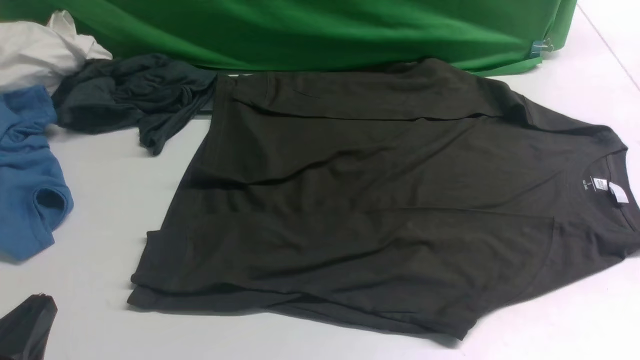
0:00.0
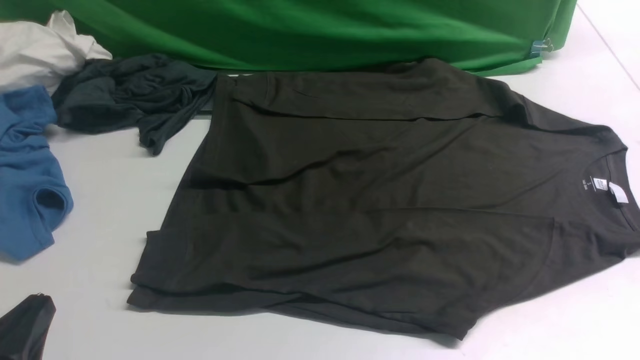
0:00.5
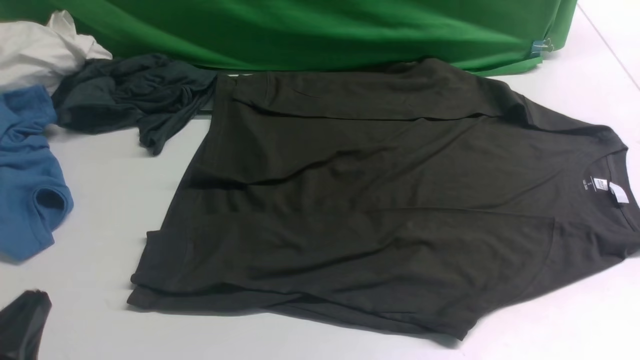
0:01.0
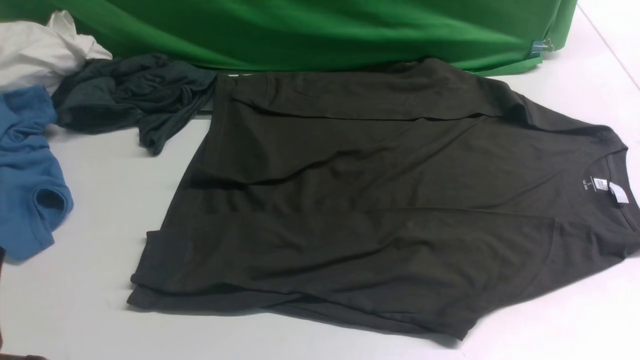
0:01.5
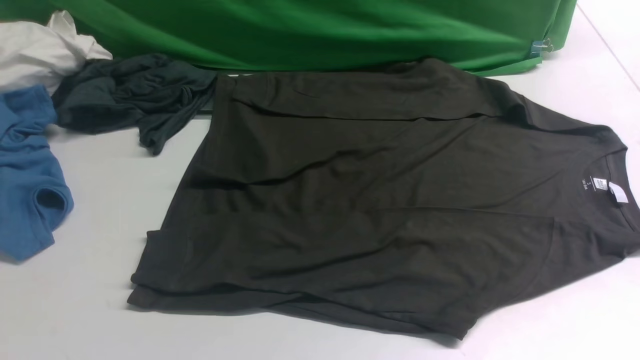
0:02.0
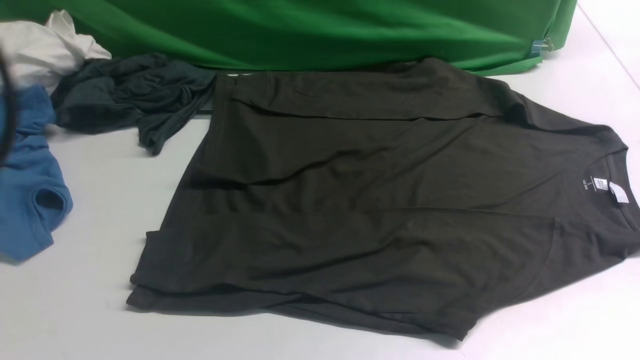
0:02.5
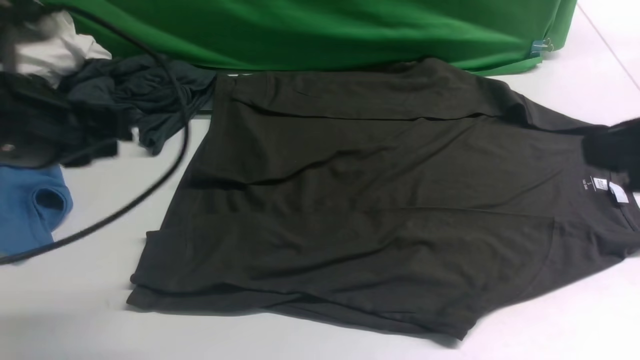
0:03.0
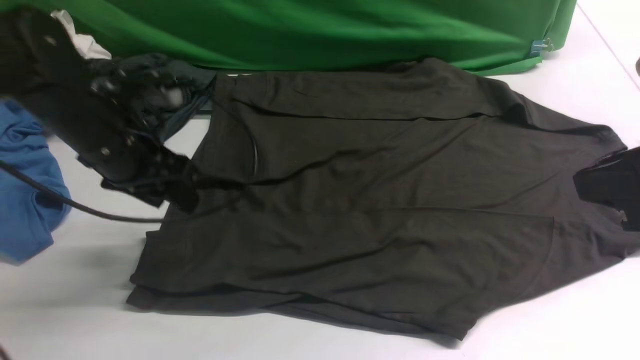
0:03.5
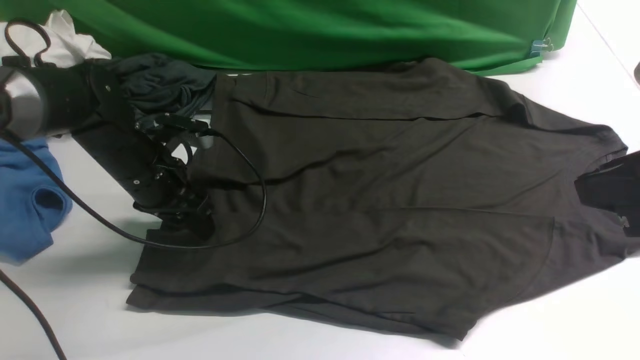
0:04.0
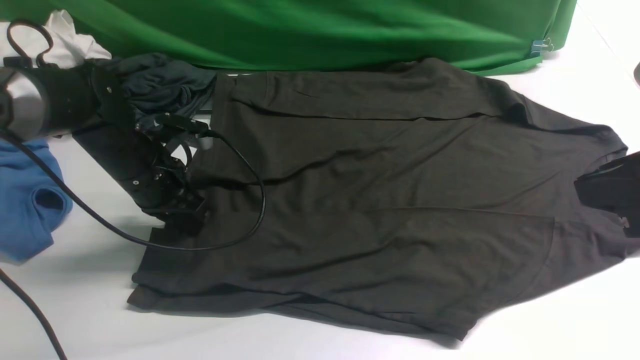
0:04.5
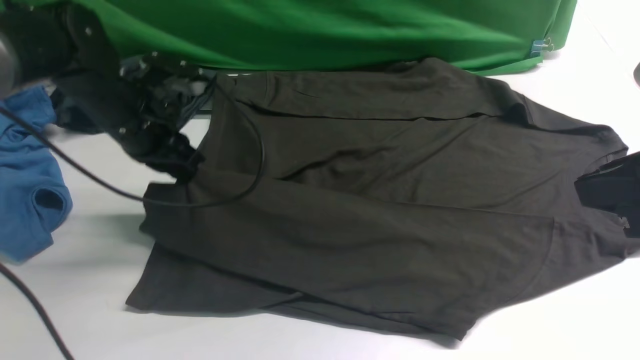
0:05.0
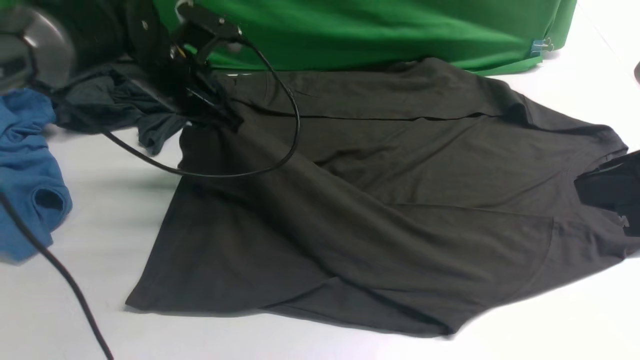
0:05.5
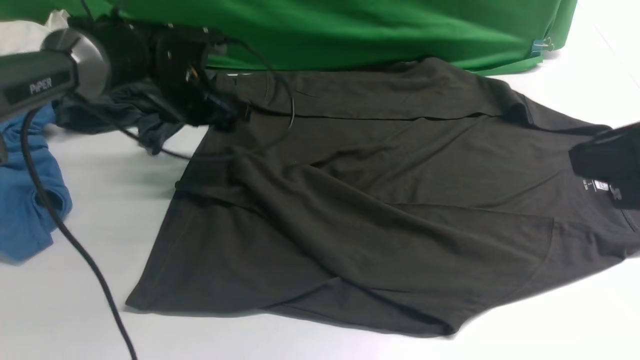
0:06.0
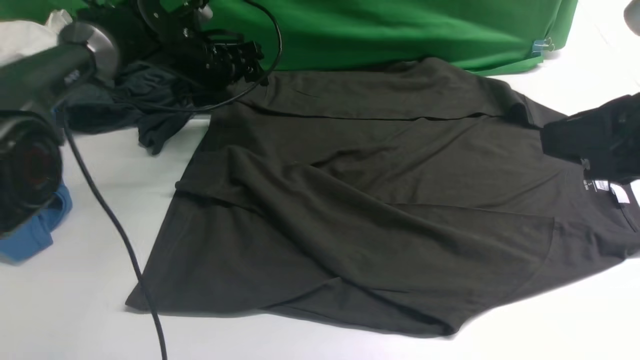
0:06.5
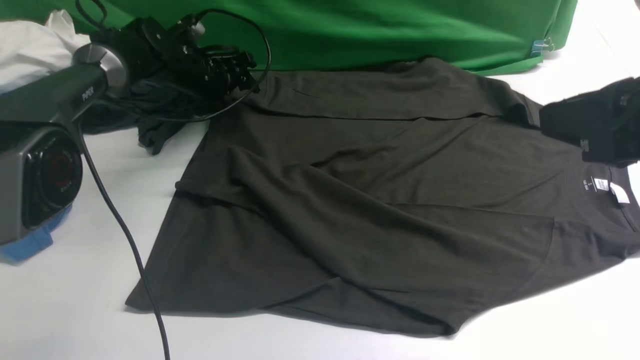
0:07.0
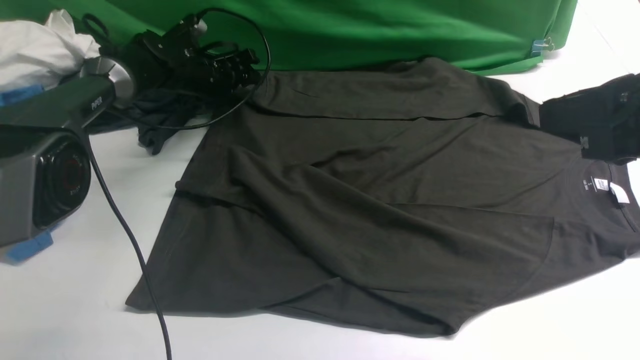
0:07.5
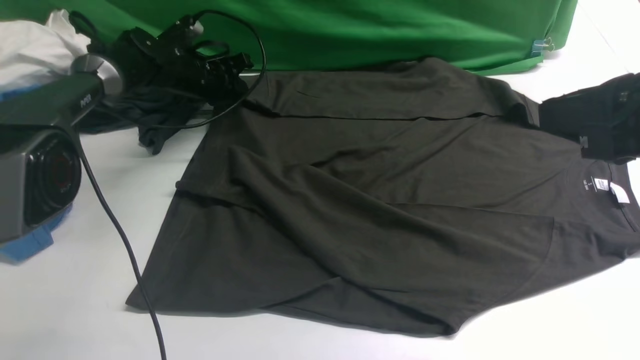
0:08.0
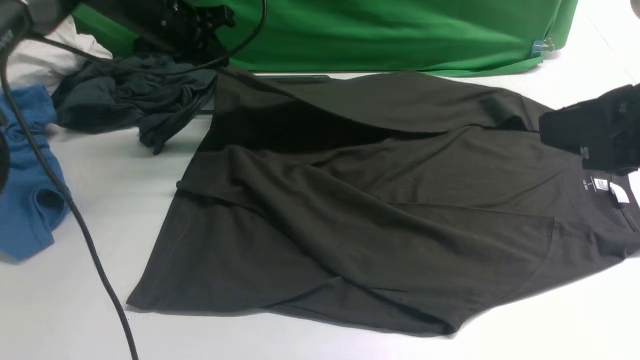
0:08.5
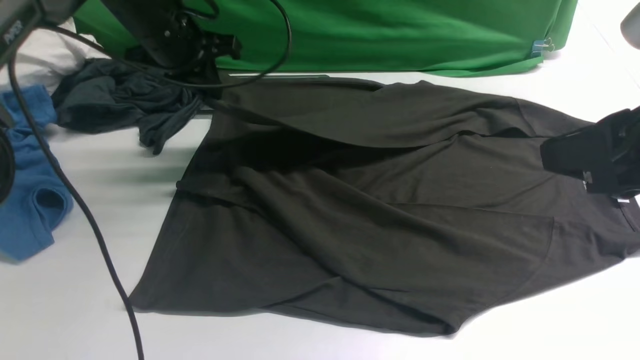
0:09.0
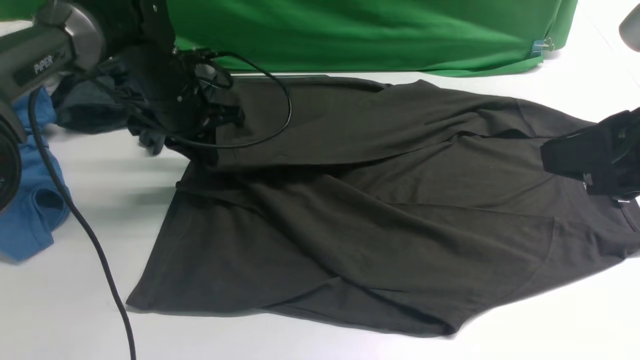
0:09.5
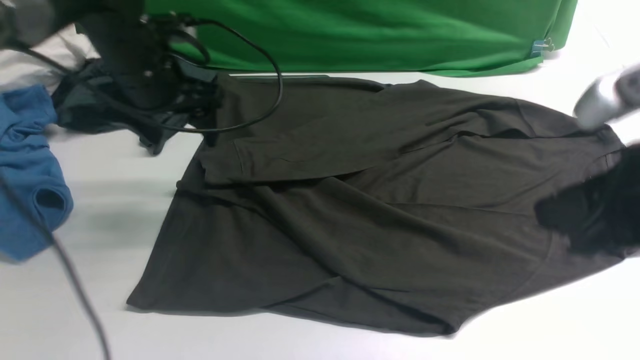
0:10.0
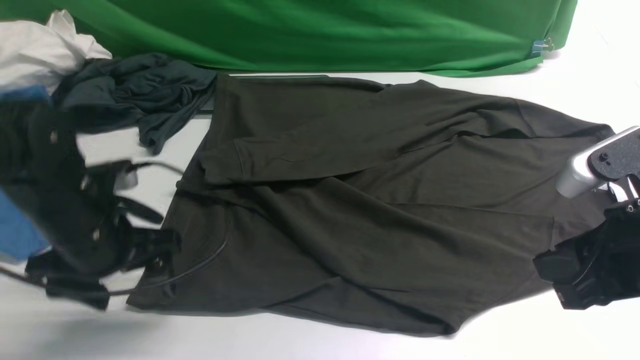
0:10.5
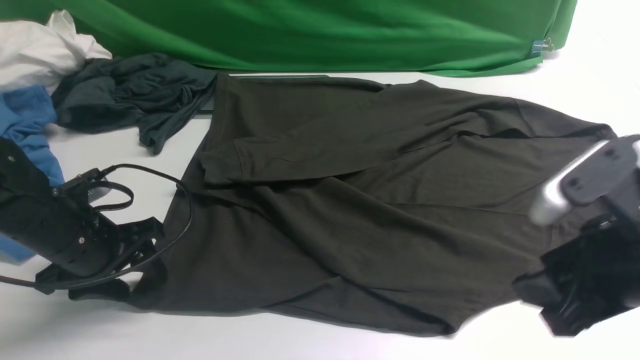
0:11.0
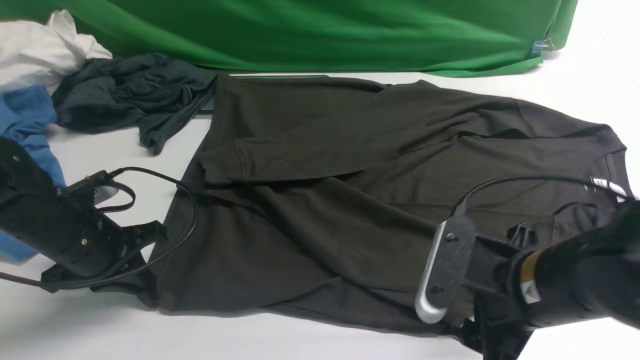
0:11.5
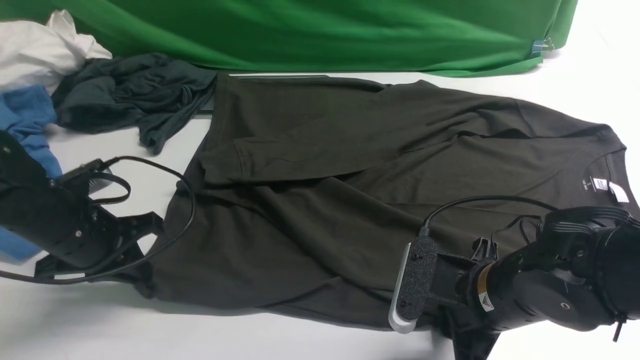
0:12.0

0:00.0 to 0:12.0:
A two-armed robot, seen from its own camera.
Step, 0:00.0 to 0:04.5: use the left arm to clamp the cuff closest to it.
Step, 0:05.5 to 0:06.0: use the left arm to drag and place the cuff at the centered position on the left edge of the fabric.
Step, 0:06.5 to 0:08.0: use the left arm to clamp the cuff farthest from it.
Step, 0:08.5 to 0:09.5: use the left arm to drag and drop the cuff onto the cuff closest to the left arm.
0:00.0 to 0:02.0: The left gripper moves upward, about 20 cm.
0:02.0 to 0:04.0: The left gripper goes roughly 40 cm forward and downward, and opens up. The right gripper shifts approximately 15 cm forward and to the left.
0:04.0 to 0:06.0: The left gripper goes approximately 10 cm forward, and closes and opens again.
0:06.0 to 0:08.0: The left gripper is displaced forward by roughly 10 cm, and closes its fingers.
0:08.0 to 0:10.0: The left gripper travels backward and upward by roughly 20 cm, and opens; the right gripper heads downward, covering approximately 5 cm.
0:10.0 to 0:12.0: The right gripper shifts roughly 20 cm downward and to the left, and opens, then closes once more; the left gripper travels backward, downward and to the left by some 15 cm, and closes up.

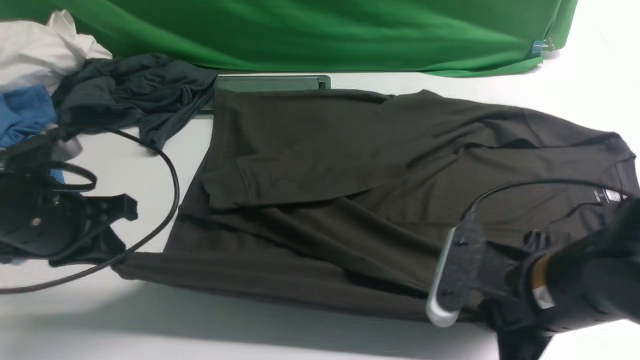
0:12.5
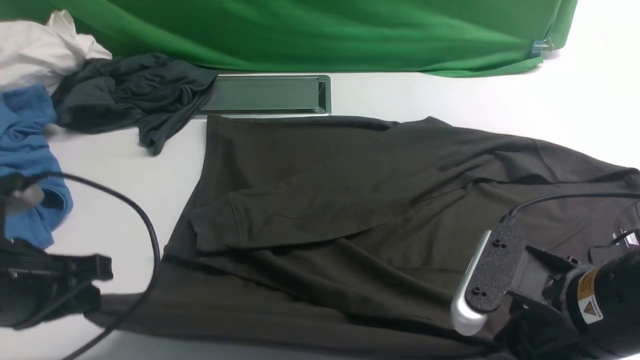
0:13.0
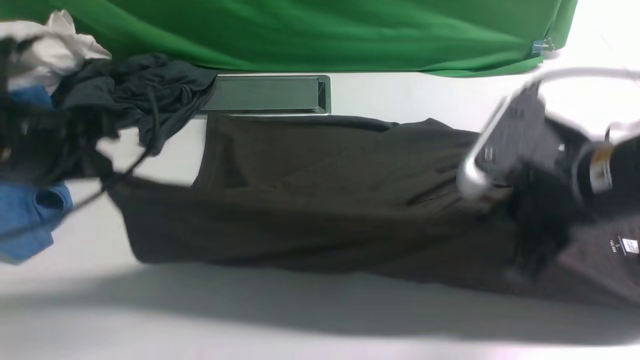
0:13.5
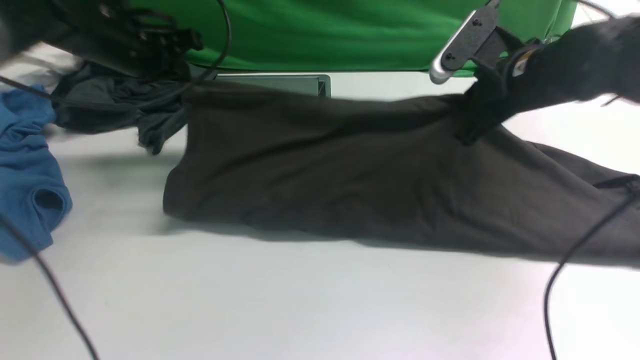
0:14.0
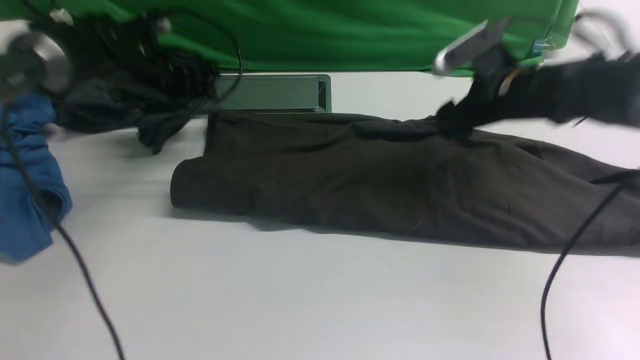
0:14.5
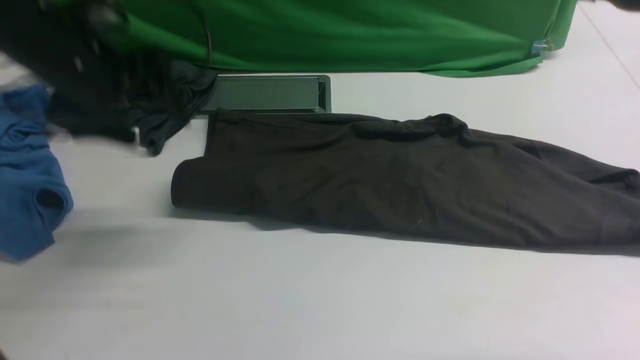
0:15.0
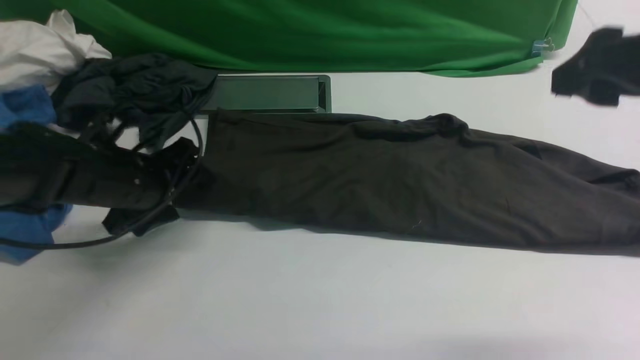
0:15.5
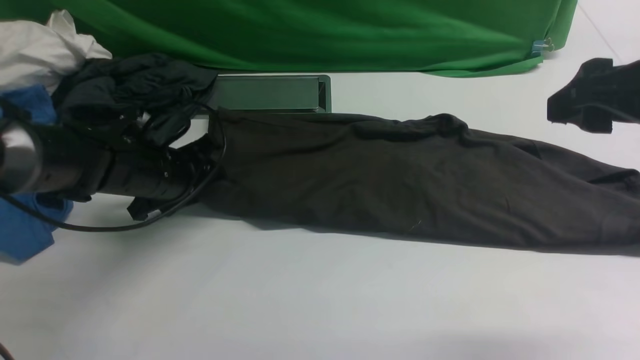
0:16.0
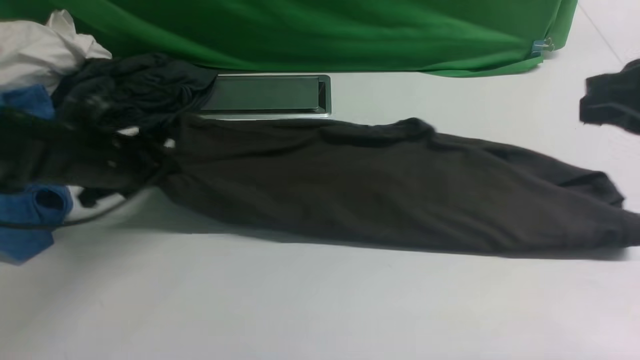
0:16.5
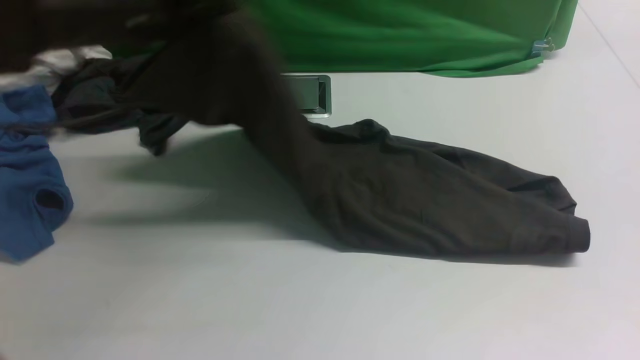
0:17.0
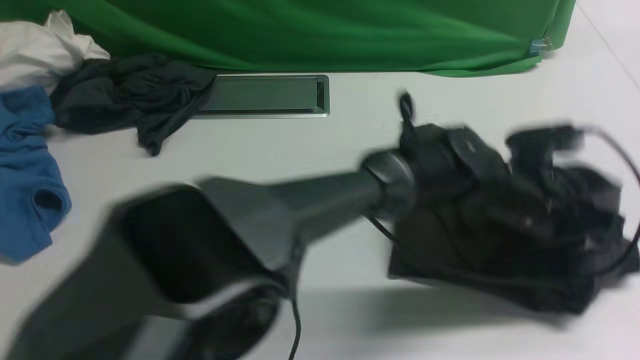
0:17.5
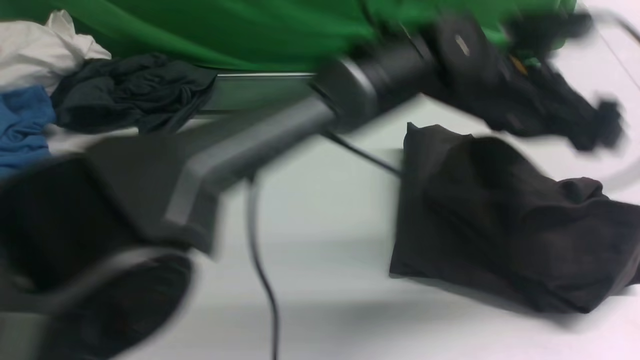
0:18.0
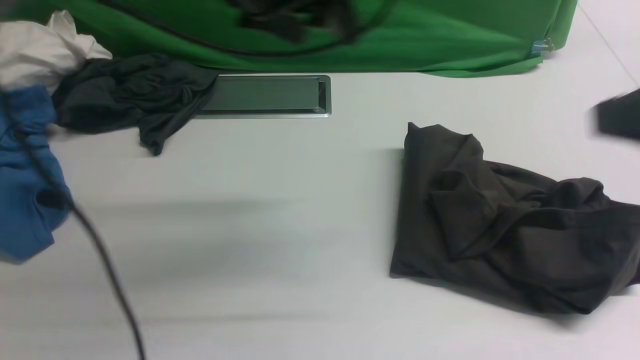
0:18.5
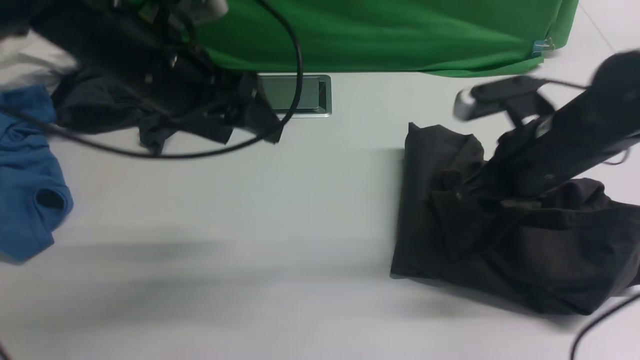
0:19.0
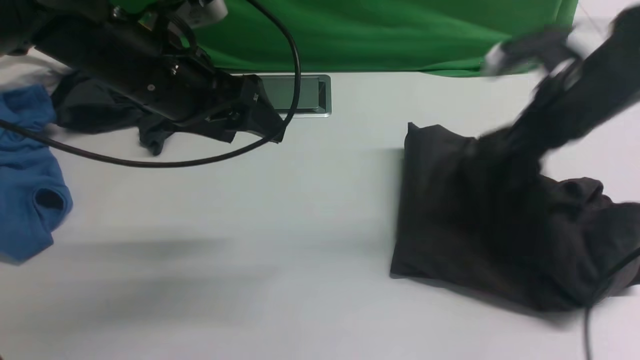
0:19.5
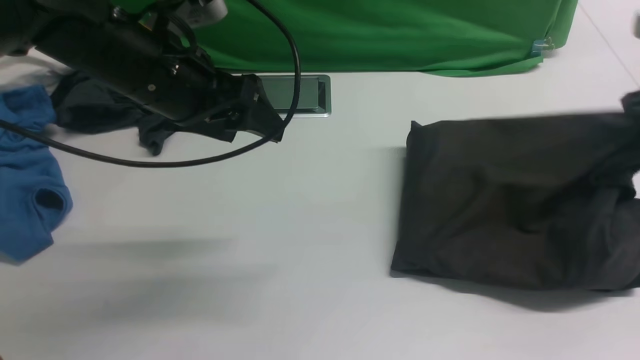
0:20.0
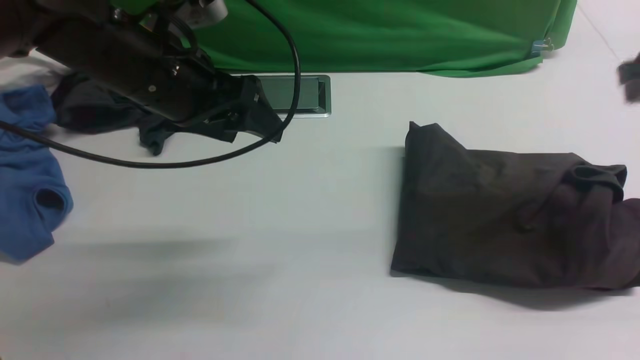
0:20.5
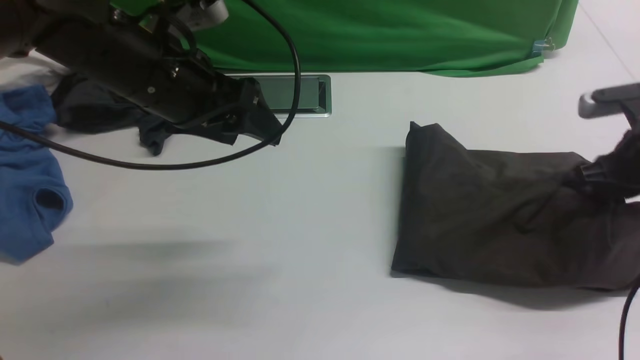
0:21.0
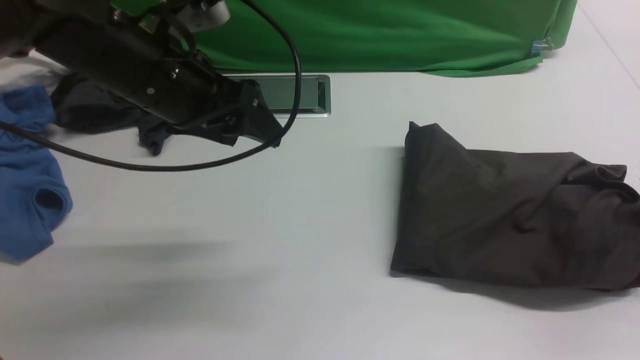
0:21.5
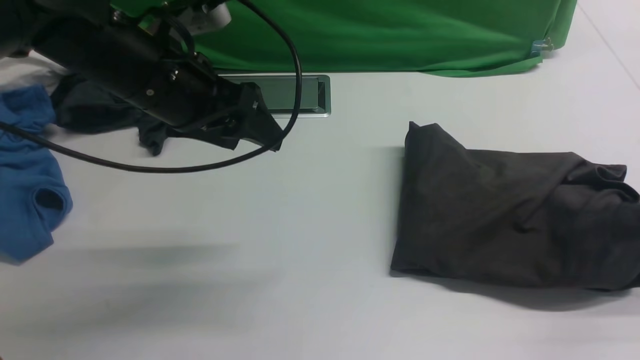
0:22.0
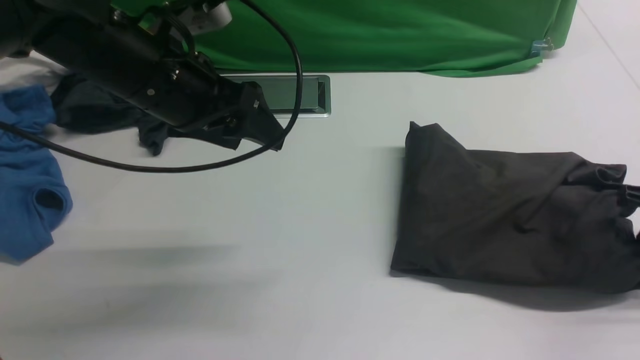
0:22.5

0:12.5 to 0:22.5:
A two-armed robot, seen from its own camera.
Step, 0:12.5 to 0:14.0: use both arms to drag the lower edge of the fabric forward and fold it over the upper edge.
Step, 0:15.0 to 0:16.5: Hold the left edge of the fabric with your left arm.
Step, 0:17.0 to 0:18.0: Drag the left edge of the fabric to the left with your left arm and fold it to the right edge.
0:12.5 to 0:14.5: The grippers both shift forward by some 25 cm. The right gripper opens its fingers; the left gripper opens.
0:14.5 to 0:16.5: The left gripper is displaced backward by roughly 15 cm, and closes up. Meanwhile the right gripper heads backward and upward, covering some 25 cm, and closes.
0:16.5 to 0:18.5: The left gripper travels upward and to the right by some 25 cm, and opens up. Meanwhile the right gripper opens up.
0:18.5 to 0:20.5: The right gripper heads forward, to the right and downward, covering approximately 20 cm, and closes and opens again; the left gripper travels to the left, backward and downward by roughly 10 cm.
0:20.5 to 0:22.5: The right gripper moves downward, roughly 10 cm, and closes its fingers.
